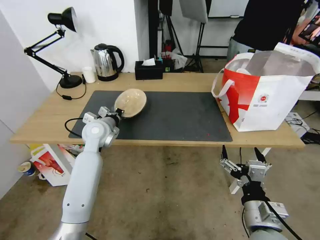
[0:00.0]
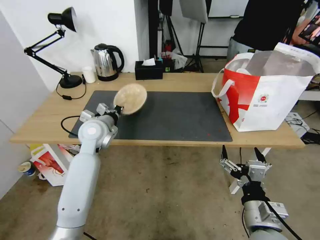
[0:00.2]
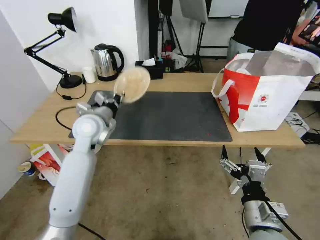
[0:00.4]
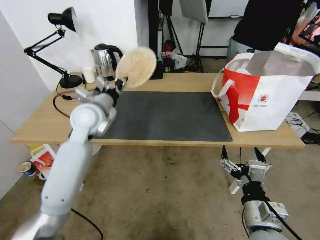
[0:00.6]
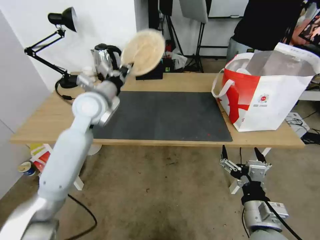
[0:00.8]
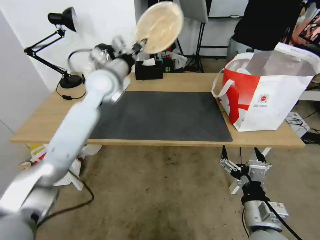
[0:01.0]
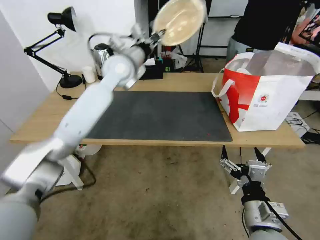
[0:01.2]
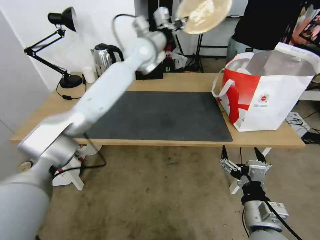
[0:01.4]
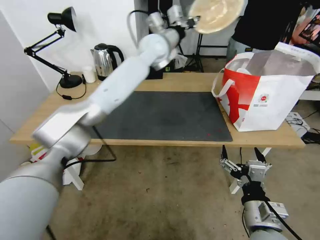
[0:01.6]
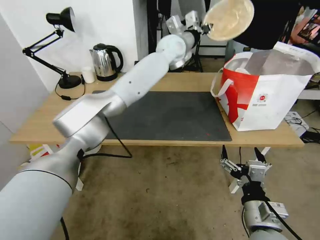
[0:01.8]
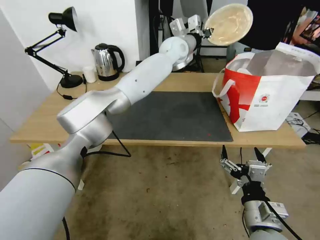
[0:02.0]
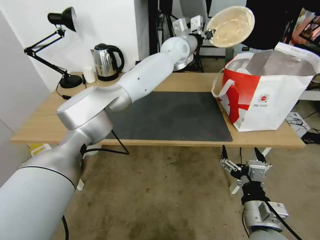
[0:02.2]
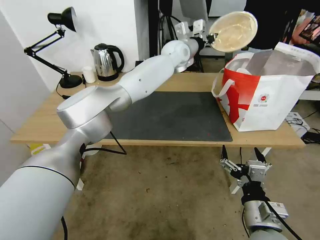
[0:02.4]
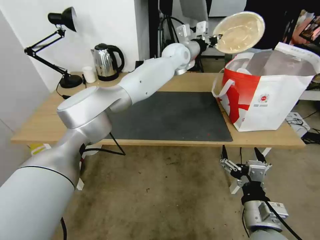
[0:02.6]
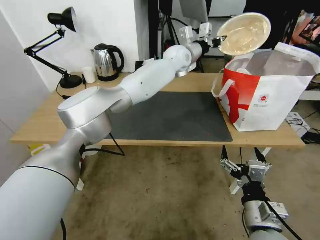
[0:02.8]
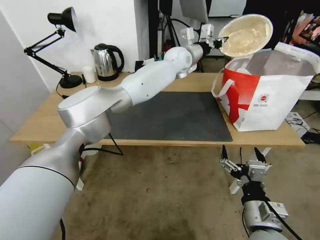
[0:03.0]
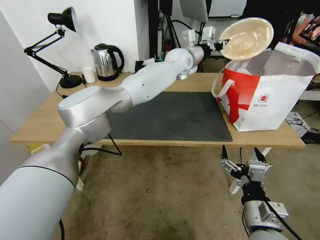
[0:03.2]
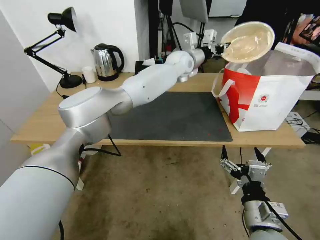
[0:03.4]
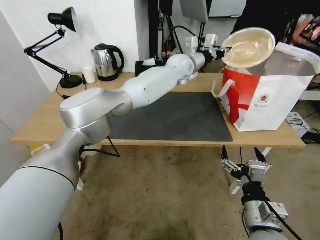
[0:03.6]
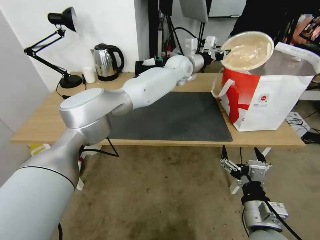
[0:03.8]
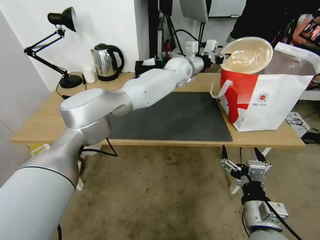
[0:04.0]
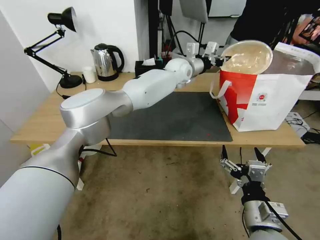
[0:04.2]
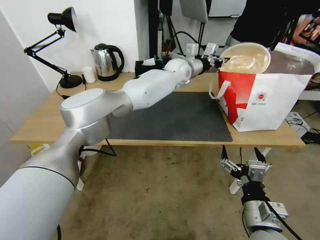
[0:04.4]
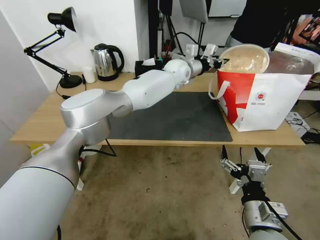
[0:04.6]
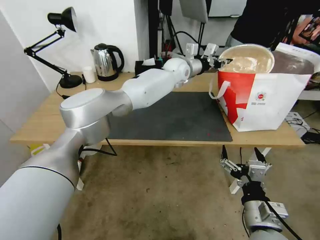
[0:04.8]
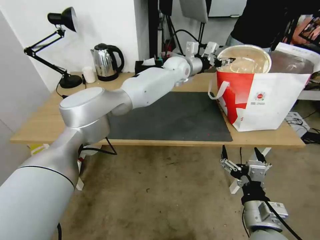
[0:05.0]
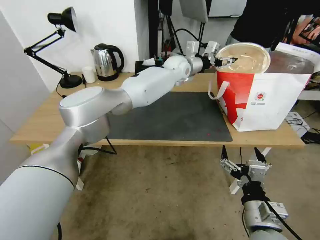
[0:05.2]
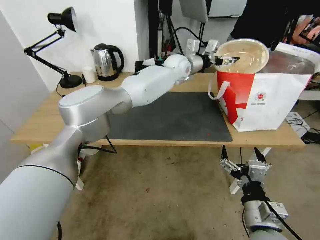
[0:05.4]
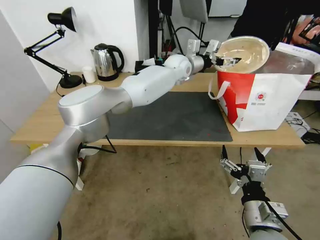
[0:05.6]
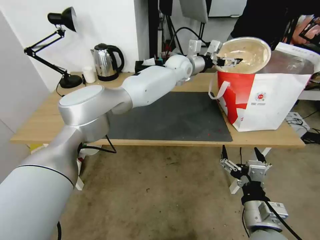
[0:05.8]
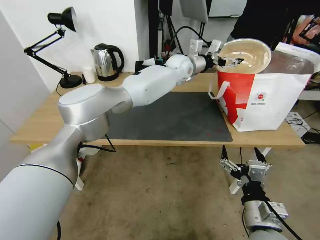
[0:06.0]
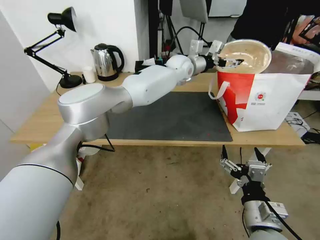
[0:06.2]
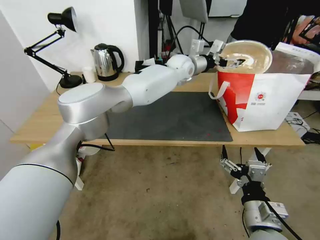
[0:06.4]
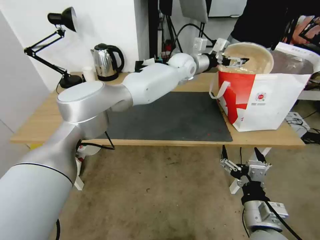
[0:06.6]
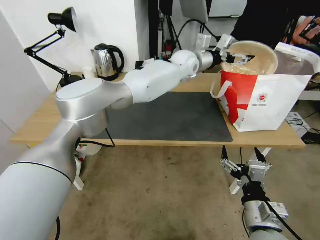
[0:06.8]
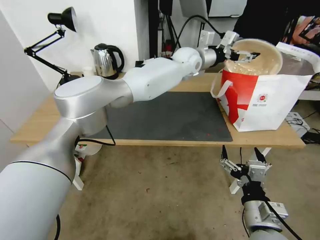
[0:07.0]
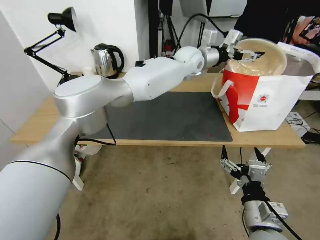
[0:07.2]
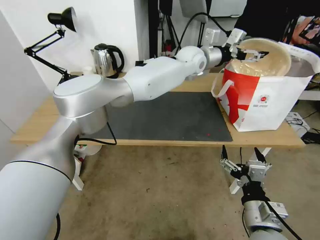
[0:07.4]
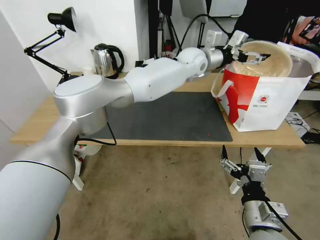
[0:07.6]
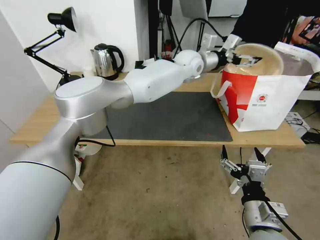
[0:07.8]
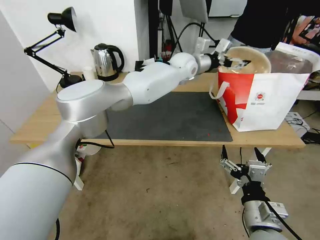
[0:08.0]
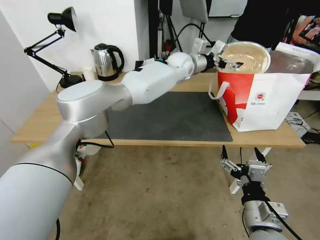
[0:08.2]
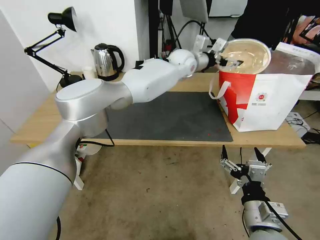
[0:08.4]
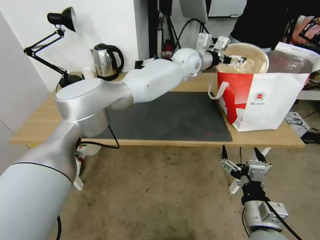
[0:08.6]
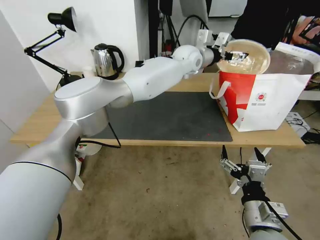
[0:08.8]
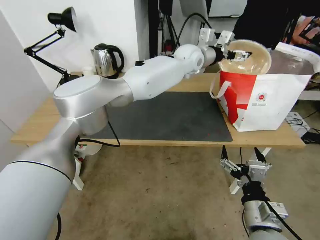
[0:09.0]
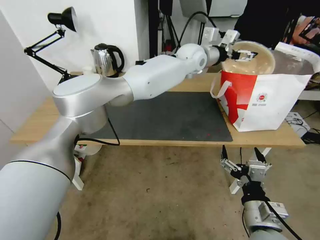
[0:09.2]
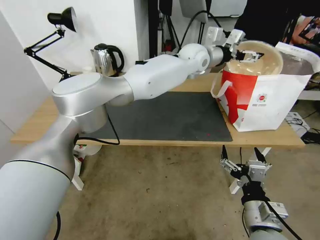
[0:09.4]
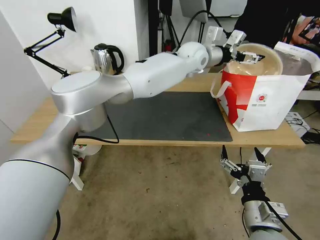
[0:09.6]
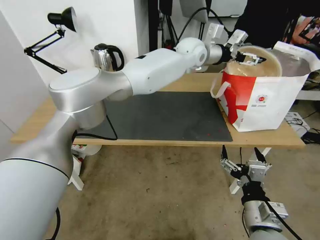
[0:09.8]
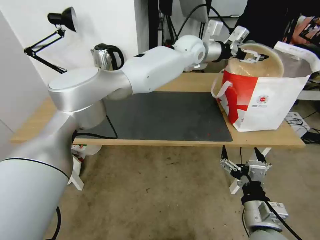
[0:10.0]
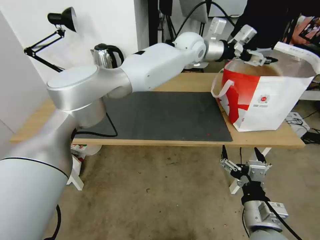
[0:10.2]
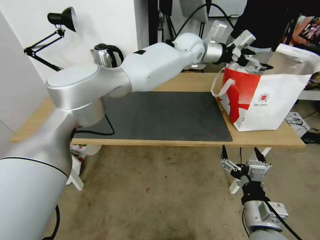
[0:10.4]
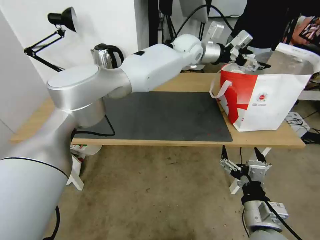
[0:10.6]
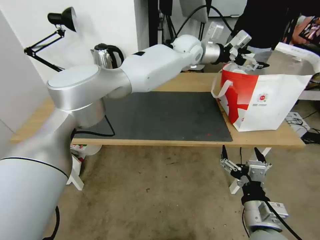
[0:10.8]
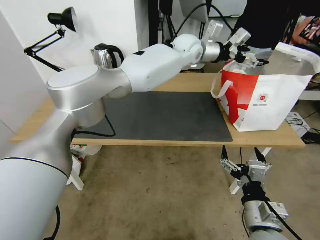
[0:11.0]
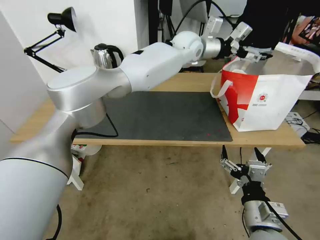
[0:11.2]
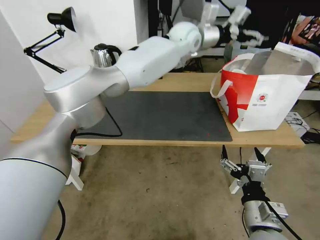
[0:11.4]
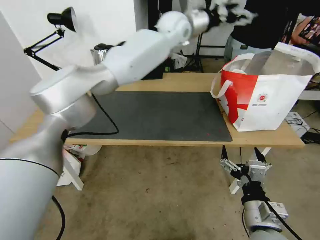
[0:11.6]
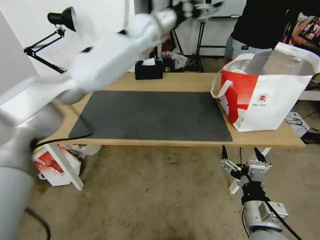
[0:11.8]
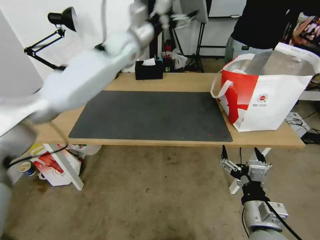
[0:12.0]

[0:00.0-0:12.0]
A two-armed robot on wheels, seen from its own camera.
Task of the whole recording: Pick up the trash from the table and place it into the takeout bag.
0:00.0 to 0:01.6: The left gripper is displaced upward, to the right and forward by some 35 cm.
0:01.6 to 0:03.0: The left gripper goes about 10 cm to the right and downward.
0:03.0 to 0:04.4: There are only small adjustments of the grippers.
0:04.4 to 0:06.0: The left gripper opens.
0:06.0 to 0:07.6: The left gripper moves about 5 cm.
0:07.6 to 0:09.0: There are only small adjustments of the grippers.
0:10.4 to 0:12.0: The left gripper goes some 20 cm to the left.

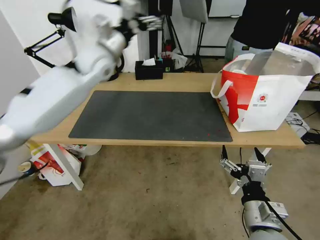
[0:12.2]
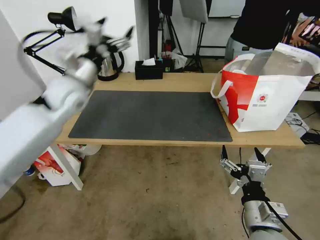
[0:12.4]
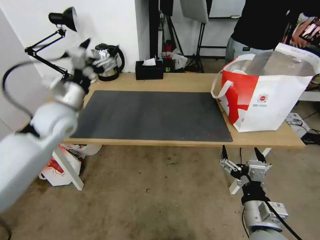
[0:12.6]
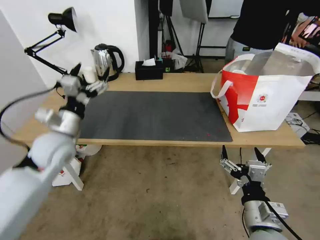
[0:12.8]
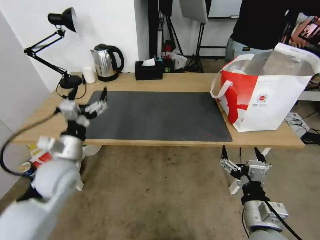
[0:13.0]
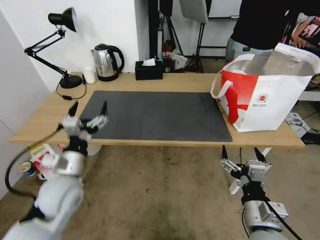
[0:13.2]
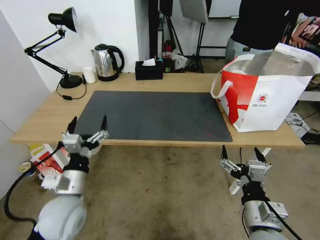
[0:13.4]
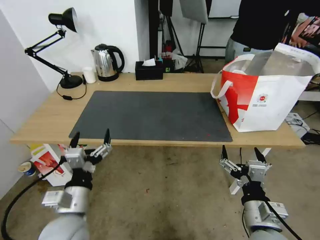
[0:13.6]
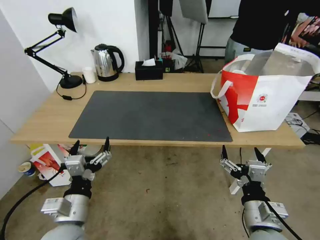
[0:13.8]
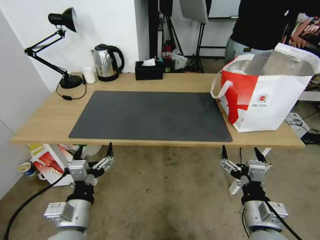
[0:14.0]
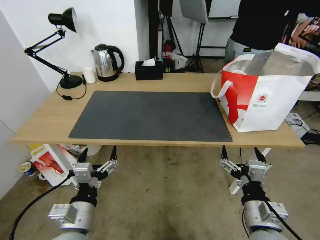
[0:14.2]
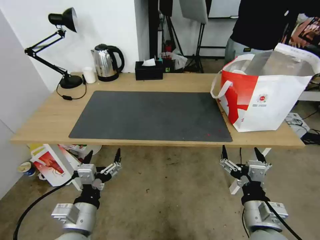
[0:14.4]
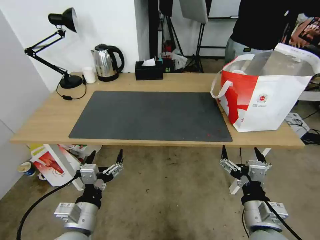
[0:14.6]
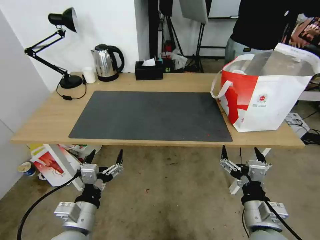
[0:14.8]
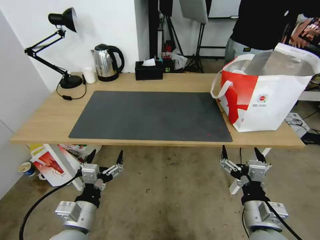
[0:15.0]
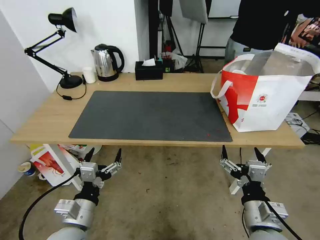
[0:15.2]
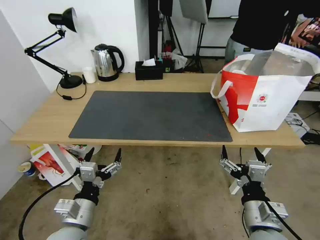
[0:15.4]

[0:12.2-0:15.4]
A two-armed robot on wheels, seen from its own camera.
Task of the whole recording: Pick up the trash from the table and place it into the takeout bag.
0:12.2 to 0:13.8: The left gripper travels backward and downward by roughly 50 cm.
0:13.8 to 0:15.4: The grippers stay close to where they were, moving slightly.

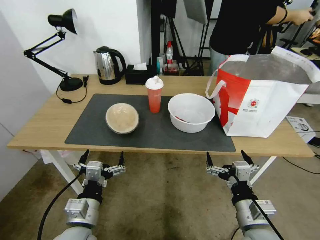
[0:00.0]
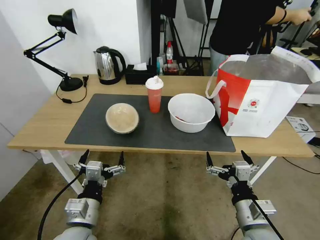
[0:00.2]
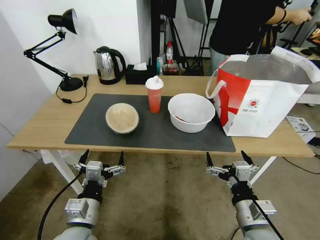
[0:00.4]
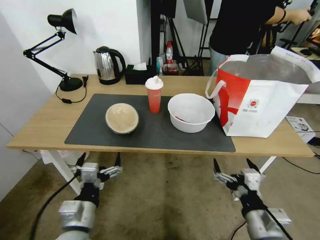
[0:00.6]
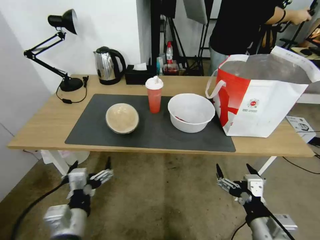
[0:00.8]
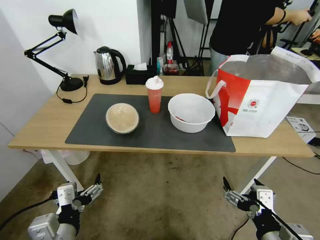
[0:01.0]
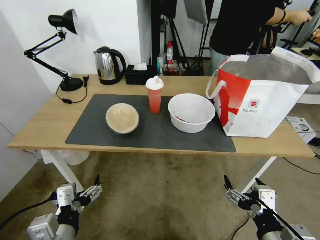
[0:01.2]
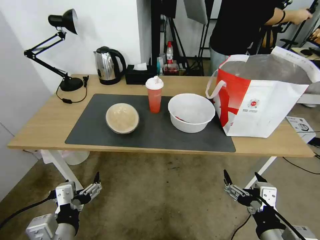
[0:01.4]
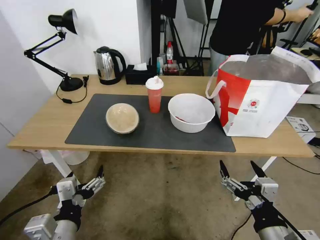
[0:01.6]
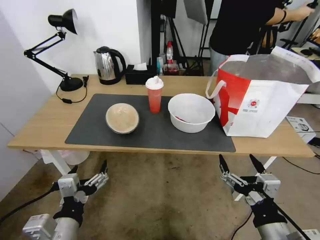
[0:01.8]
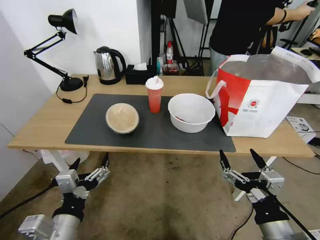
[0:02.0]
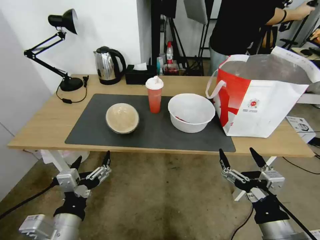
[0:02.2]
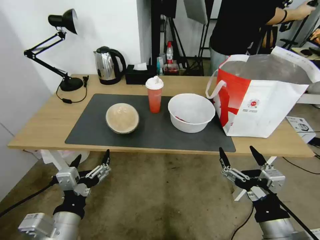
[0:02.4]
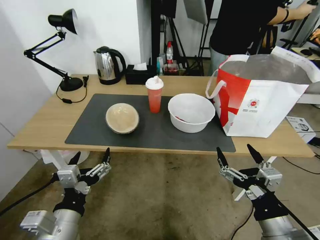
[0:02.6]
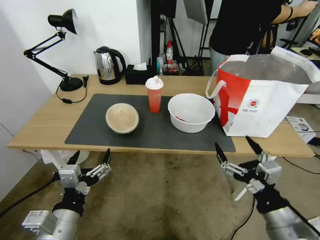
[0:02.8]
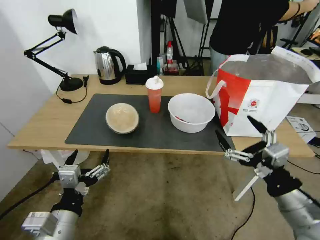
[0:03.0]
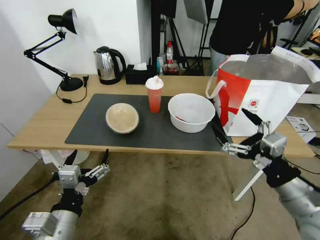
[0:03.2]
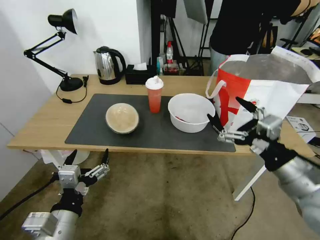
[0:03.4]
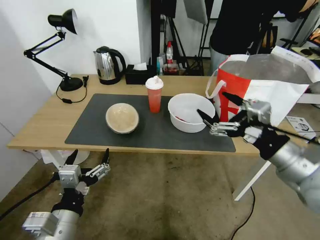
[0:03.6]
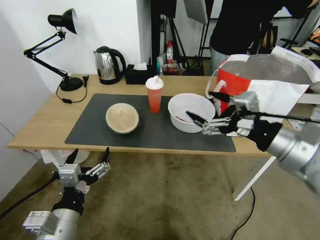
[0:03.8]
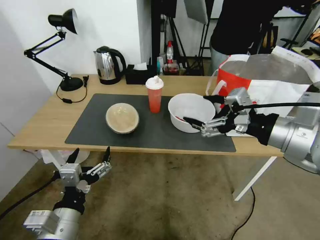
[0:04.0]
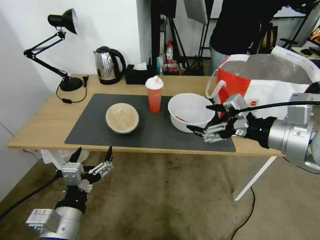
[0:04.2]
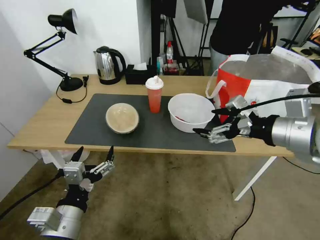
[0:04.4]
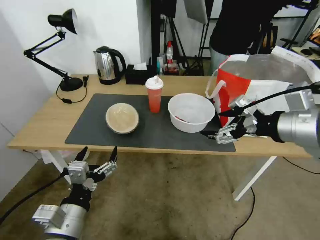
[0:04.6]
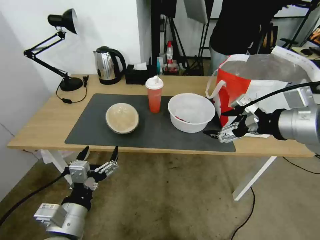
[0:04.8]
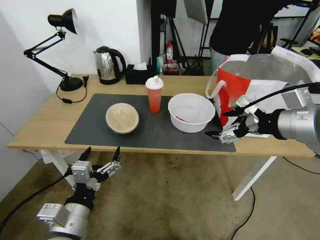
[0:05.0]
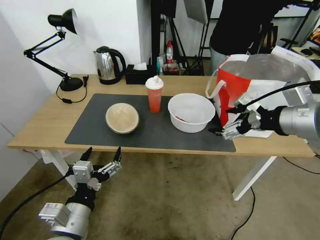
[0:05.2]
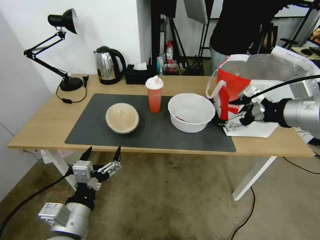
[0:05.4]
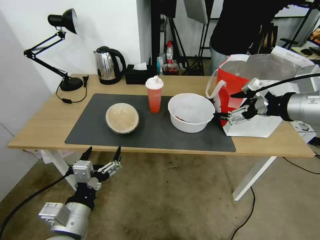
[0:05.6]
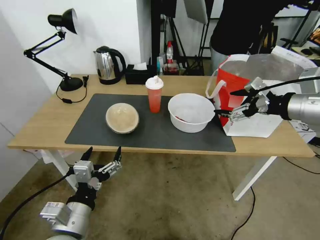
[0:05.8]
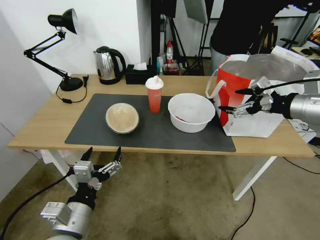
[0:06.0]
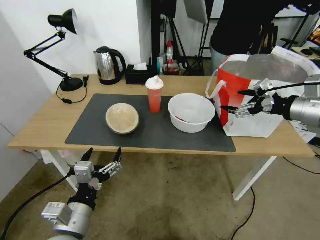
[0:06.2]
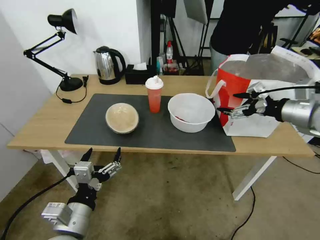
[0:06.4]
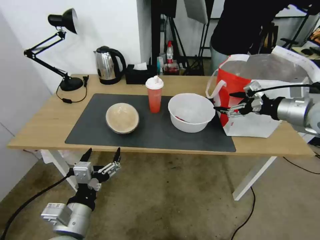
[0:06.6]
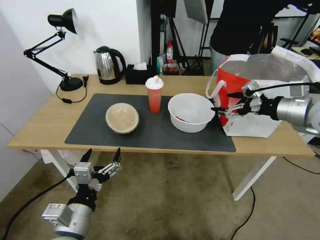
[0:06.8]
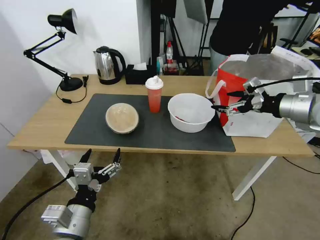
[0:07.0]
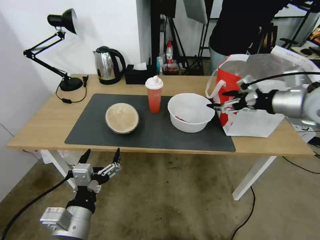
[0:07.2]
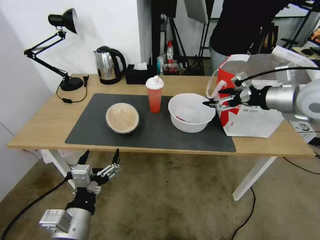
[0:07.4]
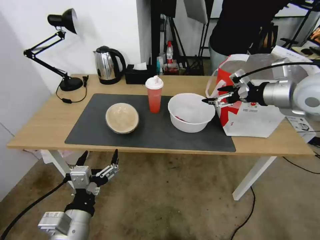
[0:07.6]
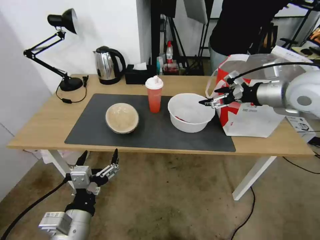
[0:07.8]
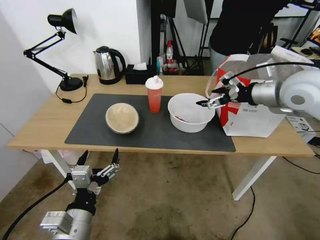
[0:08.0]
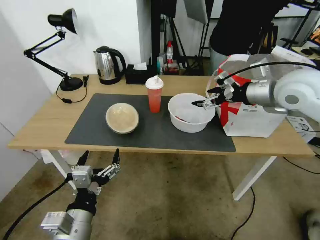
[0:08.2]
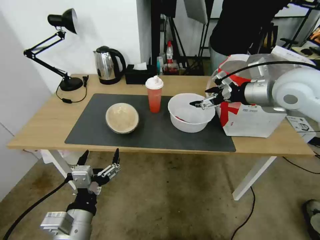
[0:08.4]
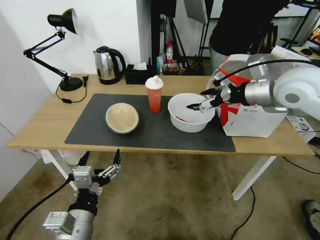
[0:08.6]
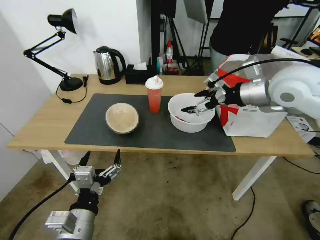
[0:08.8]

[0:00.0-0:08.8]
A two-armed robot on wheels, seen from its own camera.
Task of the whole recording: Pick up the trash from the table and place it into the takeout bag.
0:01.4 to 0:03.0: The right gripper goes some 10 cm forward and to the right.
0:03.0 to 0:04.4: The right gripper travels upward and forward by about 20 cm.
0:04.4 to 0:05.8: The right gripper moves to the right and forward, approximately 10 cm.
0:05.8 to 0:07.4: The right gripper heads forward, covering roughly 5 cm.
0:07.4 to 0:08.8: The right gripper shifts about 5 cm to the left.
